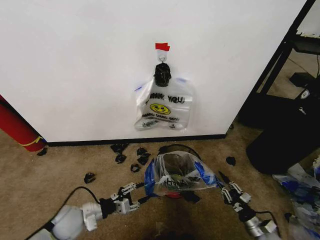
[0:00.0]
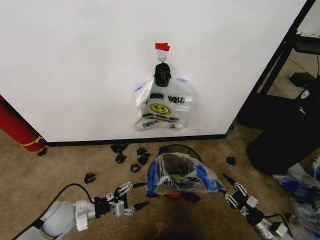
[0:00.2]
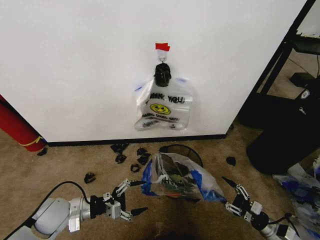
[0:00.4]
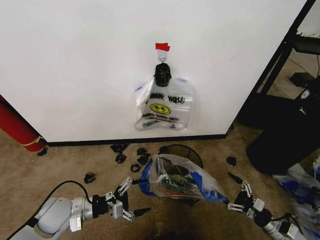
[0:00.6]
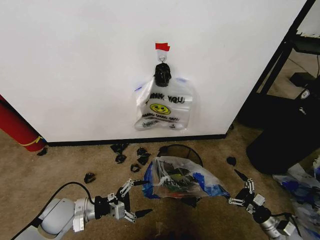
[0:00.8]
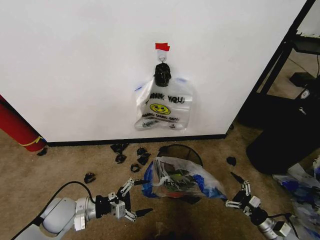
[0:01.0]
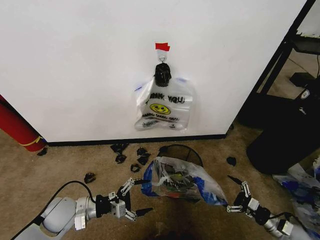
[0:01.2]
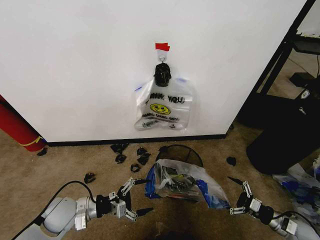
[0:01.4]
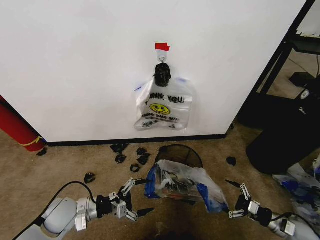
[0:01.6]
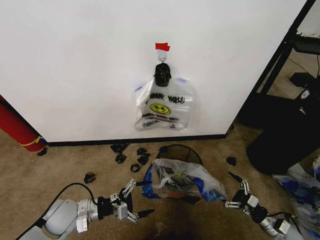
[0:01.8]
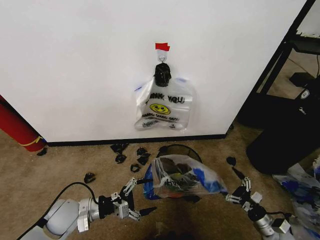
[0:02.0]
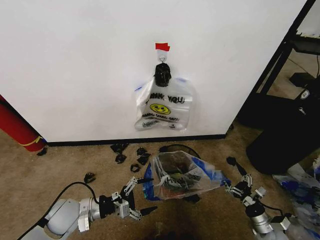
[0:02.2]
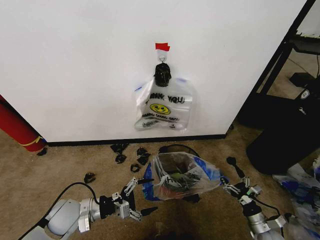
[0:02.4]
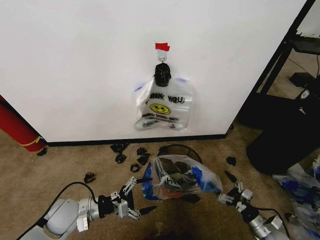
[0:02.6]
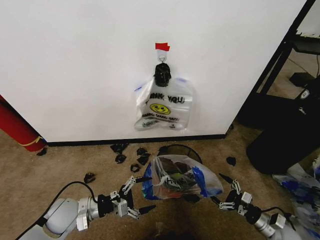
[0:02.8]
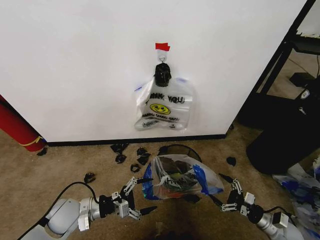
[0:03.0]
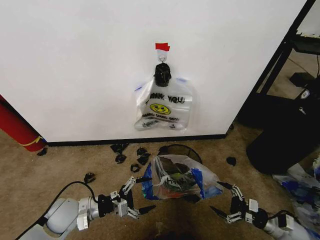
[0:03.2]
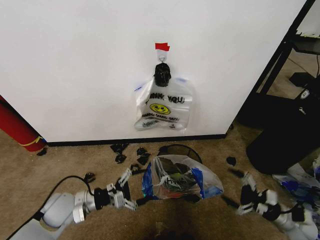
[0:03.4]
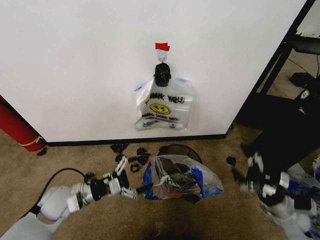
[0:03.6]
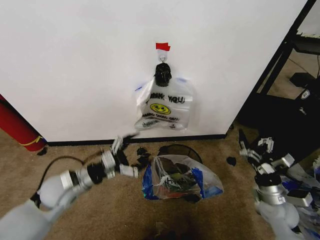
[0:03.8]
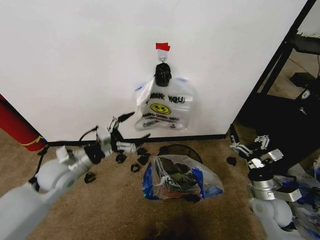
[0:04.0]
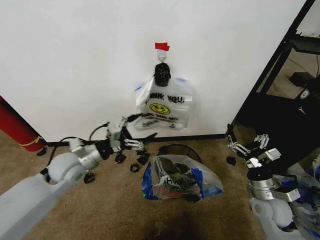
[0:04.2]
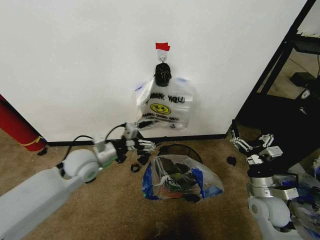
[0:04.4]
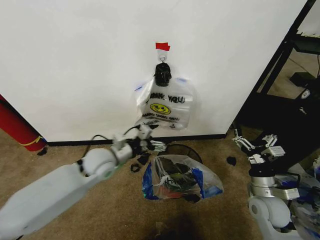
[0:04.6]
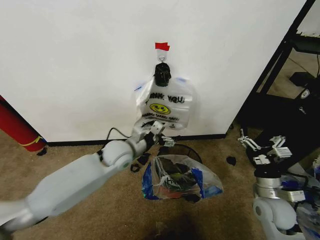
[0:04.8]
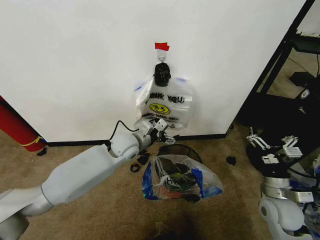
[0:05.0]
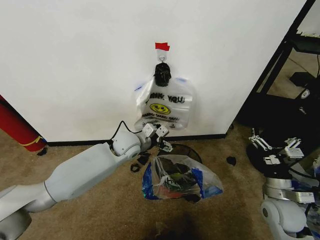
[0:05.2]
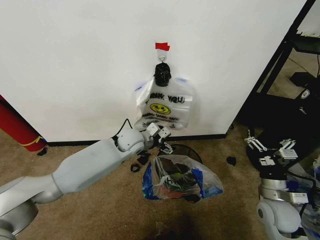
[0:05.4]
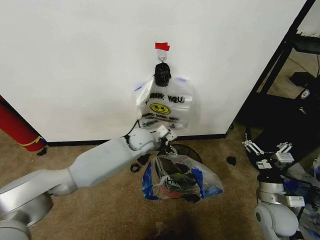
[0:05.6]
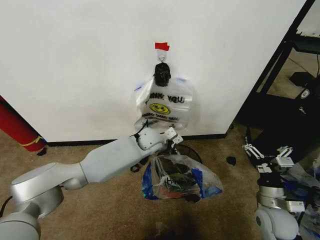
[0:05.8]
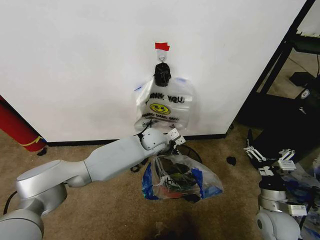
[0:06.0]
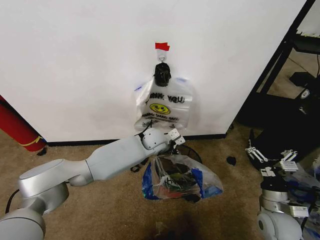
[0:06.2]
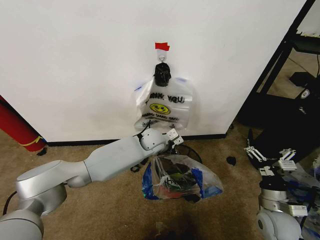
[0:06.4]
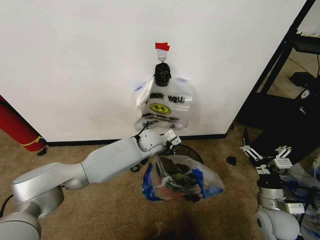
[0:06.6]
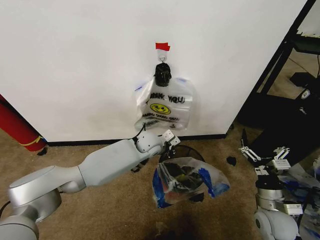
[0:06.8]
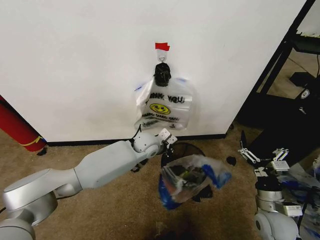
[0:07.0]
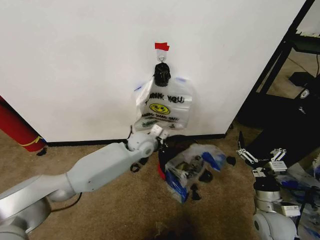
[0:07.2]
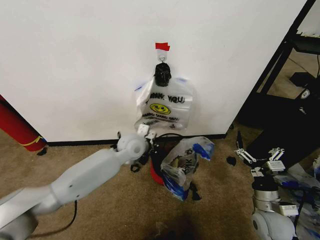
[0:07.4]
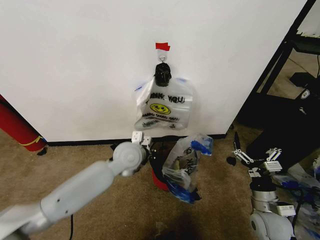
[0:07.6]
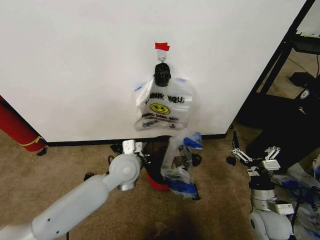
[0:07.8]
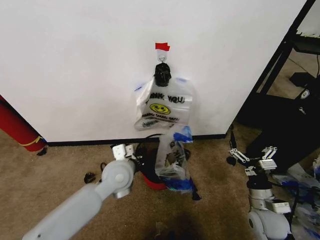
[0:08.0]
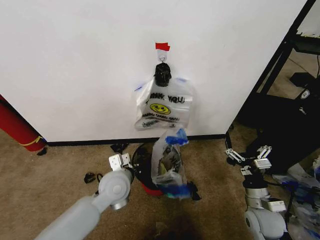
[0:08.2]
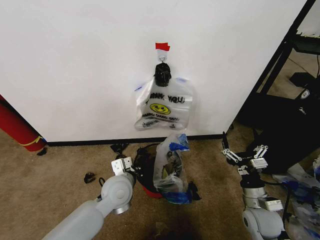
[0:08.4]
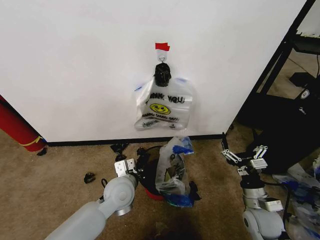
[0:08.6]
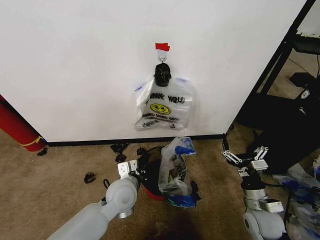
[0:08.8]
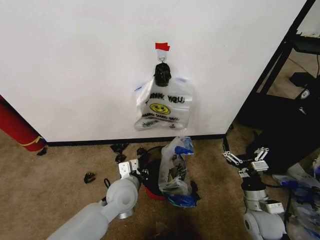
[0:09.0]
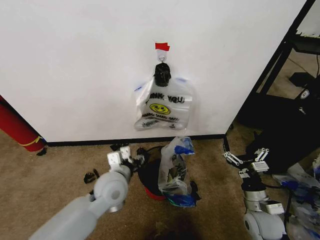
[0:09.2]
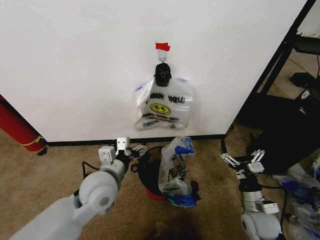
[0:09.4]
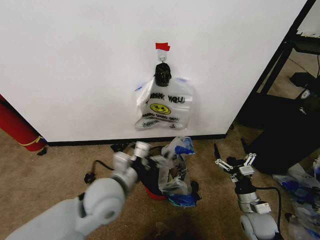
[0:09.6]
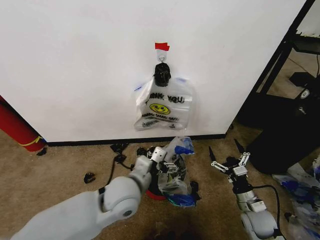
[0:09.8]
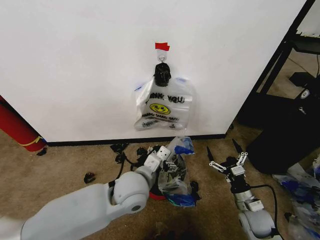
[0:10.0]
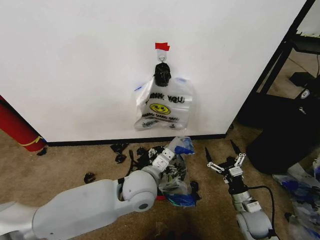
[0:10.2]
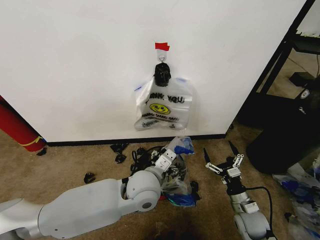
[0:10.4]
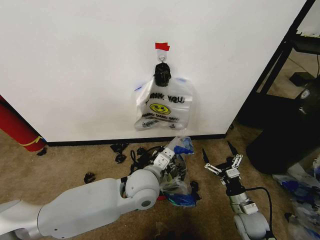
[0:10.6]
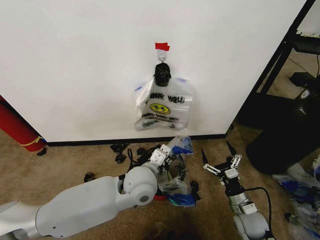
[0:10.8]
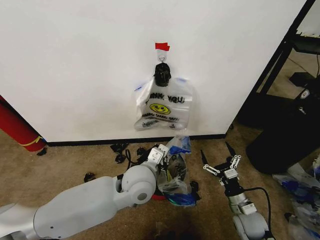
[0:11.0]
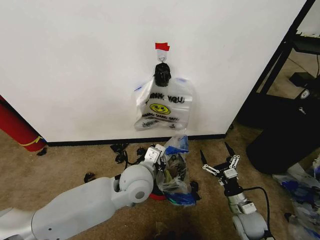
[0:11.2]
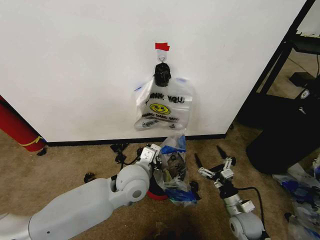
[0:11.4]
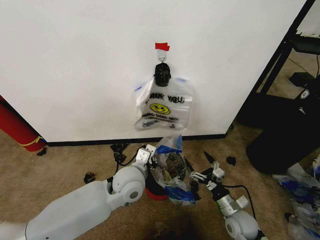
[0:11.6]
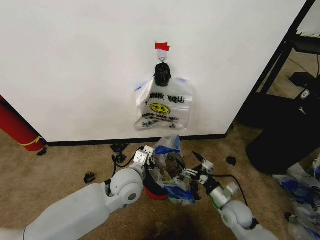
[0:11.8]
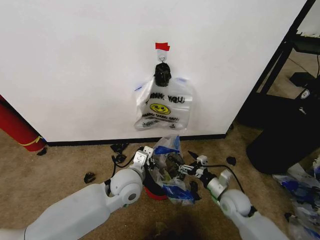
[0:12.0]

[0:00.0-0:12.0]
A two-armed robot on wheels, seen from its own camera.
Task of the whole recording: Pick up the garbage bag from the wall and place it over the trash bin.
0:00.0 to 0:01.6: The left gripper shifts by roughly 5 cm, and opens up, while the right gripper travels to the right and upward by approximately 10 cm, and opens its fingers.
0:01.6 to 0:03.0: The right gripper is displaced to the left by approximately 5 cm.
0:03.0 to 0:04.4: The right gripper is displaced upward and to the left by some 20 cm. The left gripper shifts approximately 15 cm upward, forward and to the right.
0:04.4 to 0:06.0: The left gripper travels to the right and forward by about 25 cm.
0:06.0 to 0:07.6: The left gripper travels backward and to the left by roughly 15 cm, and closes its fingers.
0:07.6 to 0:09.0: The left gripper moves backward and downward, some 10 cm, and opens.
0:09.0 to 0:10.4: The left gripper moves to the right and upward, some 10 cm, and opens. The right gripper travels downward by some 5 cm.
0:10.4 to 0:12.0: The left gripper heads to the left, covering roughly 5 cm, and closes up; the right gripper goes approximately 5 cm forward.

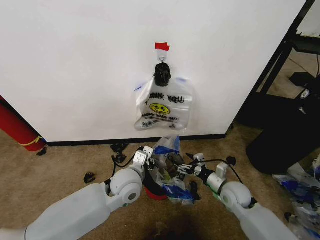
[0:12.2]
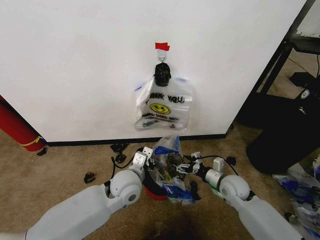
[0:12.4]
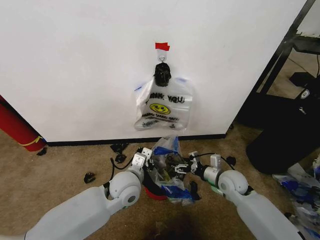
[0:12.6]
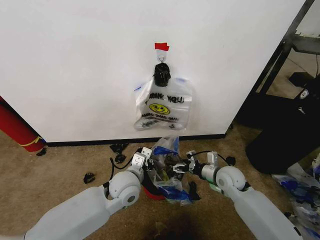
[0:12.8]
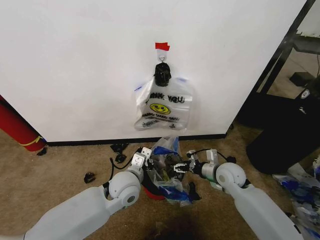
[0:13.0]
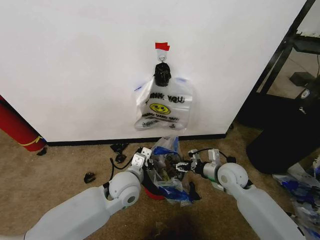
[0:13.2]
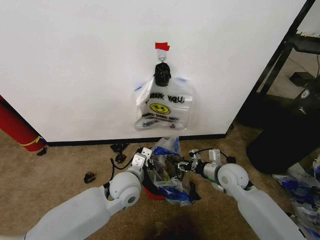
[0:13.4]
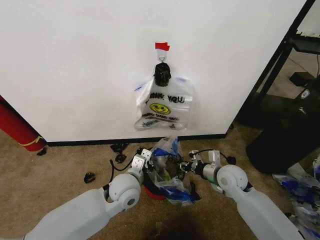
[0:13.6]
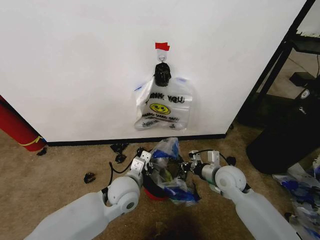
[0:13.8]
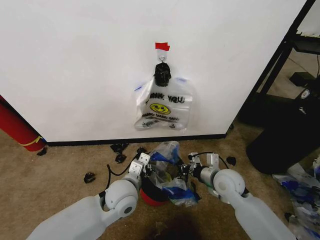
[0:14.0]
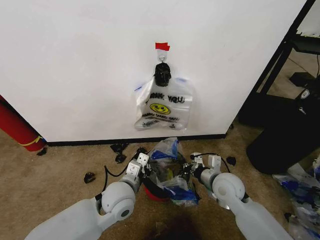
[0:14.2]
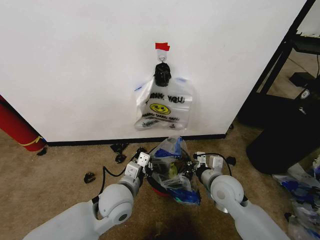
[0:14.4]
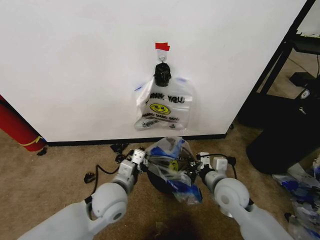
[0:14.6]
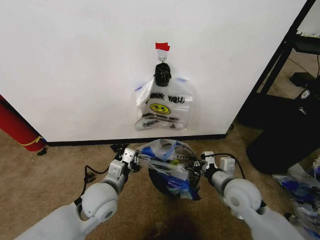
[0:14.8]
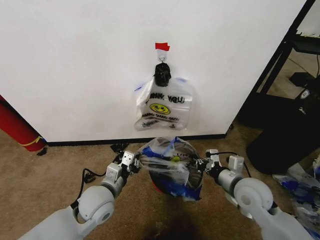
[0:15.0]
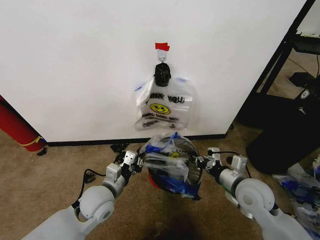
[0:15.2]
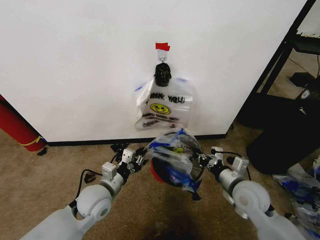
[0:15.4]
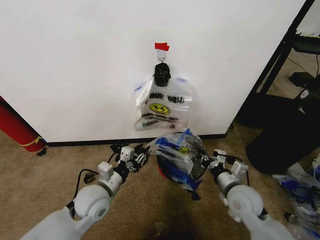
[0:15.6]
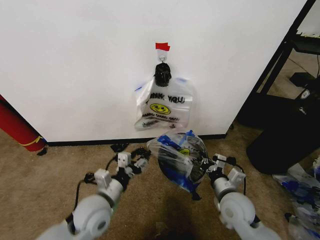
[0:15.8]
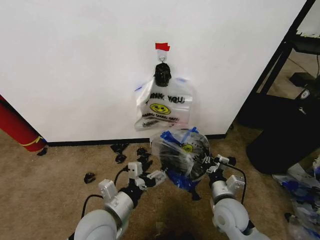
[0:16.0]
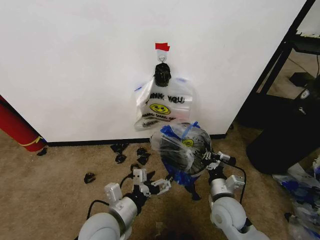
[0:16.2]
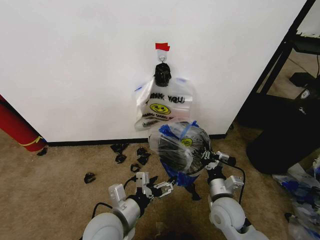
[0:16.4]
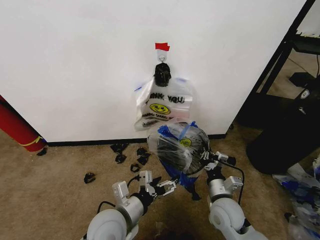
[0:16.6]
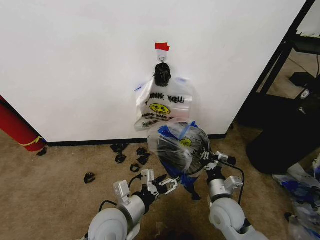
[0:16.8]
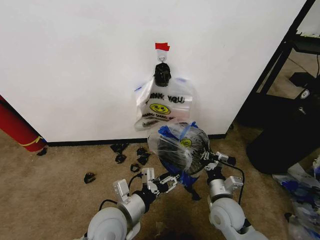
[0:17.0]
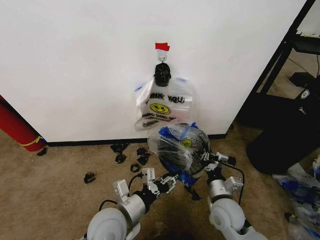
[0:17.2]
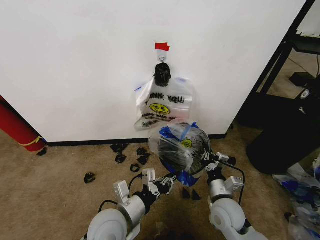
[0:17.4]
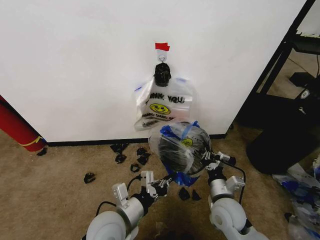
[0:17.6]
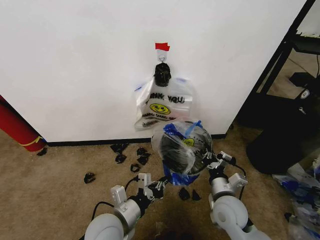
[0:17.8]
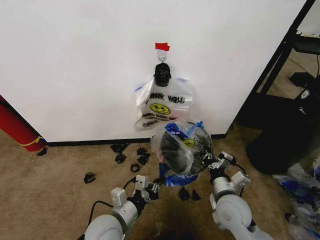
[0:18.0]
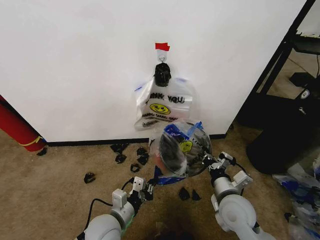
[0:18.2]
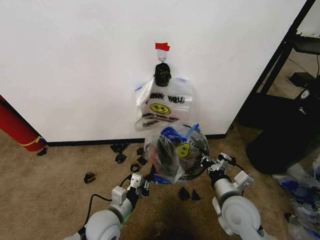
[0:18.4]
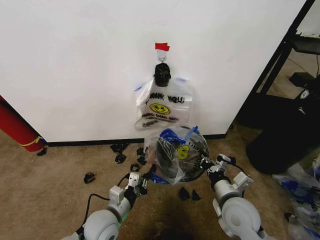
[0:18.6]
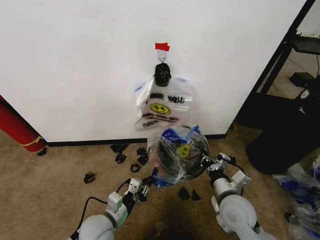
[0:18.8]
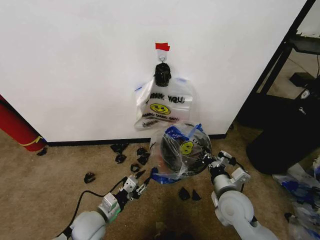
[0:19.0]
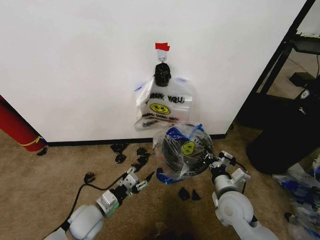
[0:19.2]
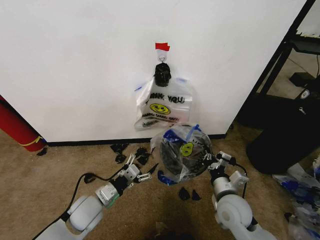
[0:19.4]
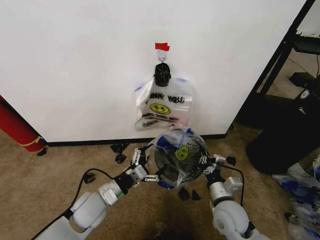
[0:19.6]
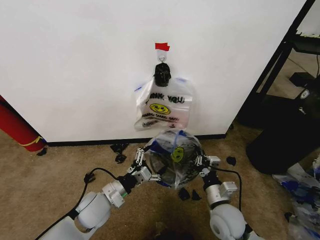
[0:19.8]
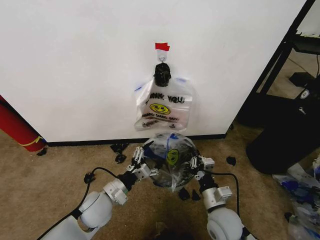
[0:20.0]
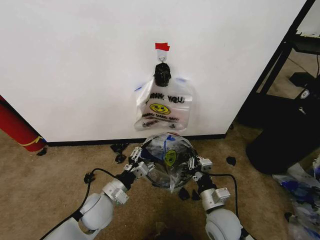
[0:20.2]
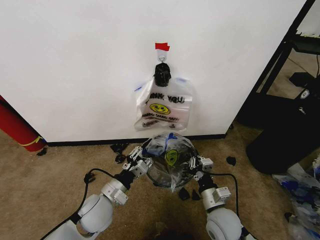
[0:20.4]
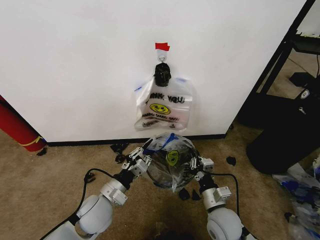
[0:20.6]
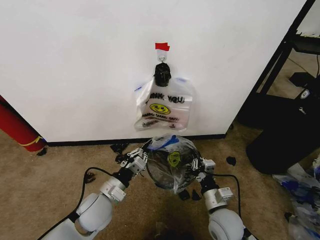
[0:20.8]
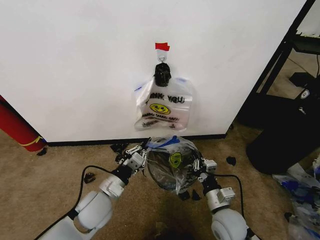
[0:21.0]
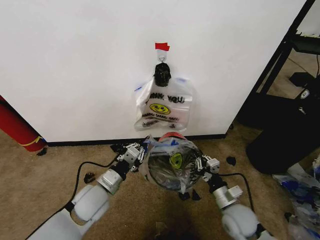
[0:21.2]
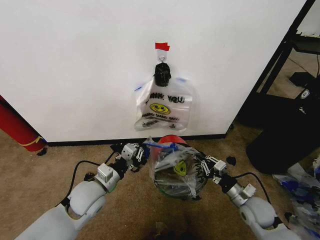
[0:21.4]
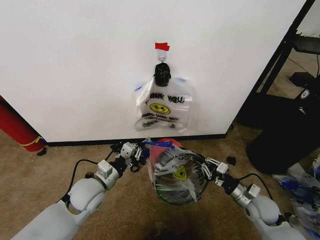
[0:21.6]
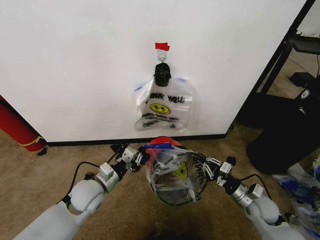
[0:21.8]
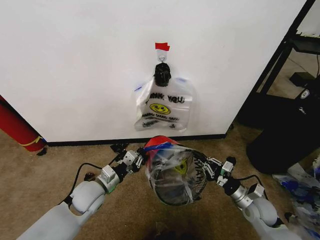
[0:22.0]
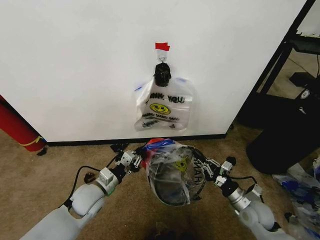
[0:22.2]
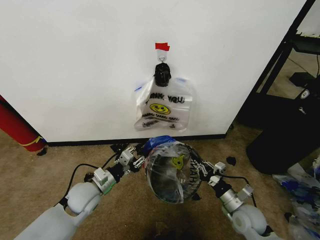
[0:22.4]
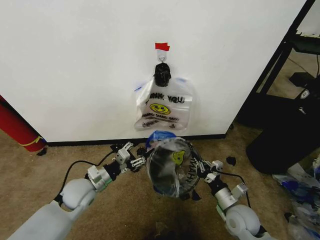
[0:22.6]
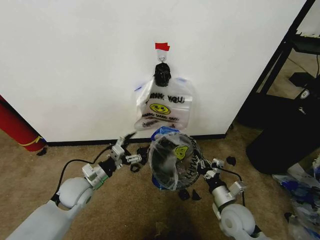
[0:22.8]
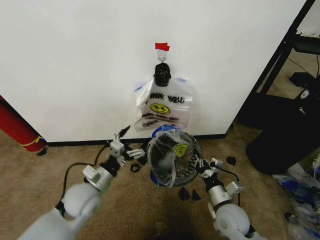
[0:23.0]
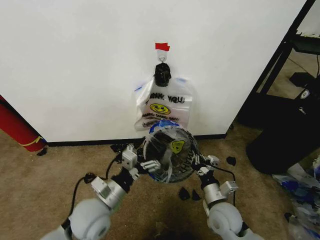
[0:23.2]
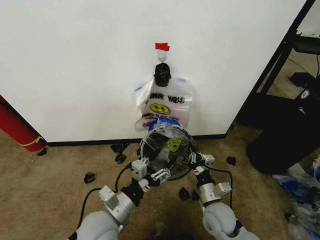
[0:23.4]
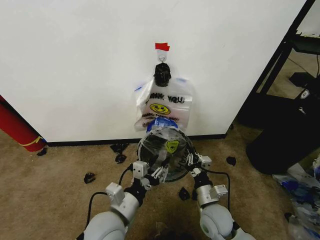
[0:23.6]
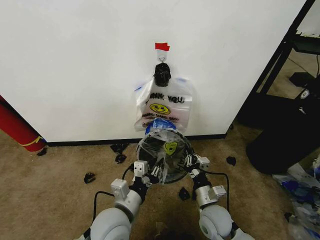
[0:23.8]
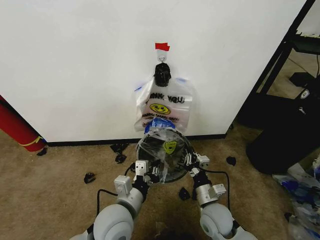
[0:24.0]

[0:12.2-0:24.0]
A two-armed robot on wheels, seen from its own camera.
Task of the whole recording: Pick up the garbage bag from the wall and place it over the trash bin.
0:12.2 to 0:13.6: The right gripper heads upward, covering some 5 cm, and closes its fingers.
0:13.6 to 0:15.2: The left gripper travels to the left by roughly 10 cm. The right gripper moves backward, some 10 cm.
0:15.2 to 0:16.6: The right gripper shifts about 10 cm downward and to the left. The left gripper heads backward and to the right, covering approximately 10 cm, and opens up.
0:16.6 to 0:18.2: The left gripper goes approximately 5 cm downward, and closes.
0:18.2 to 0:19.6: The left gripper moves forward and to the left, some 10 cm, and opens its fingers.
0:19.6 to 0:21.0: The left gripper closes its fingers.
0:21.0 to 0:22.6: The left gripper heads to the left, covering some 5 cm, and opens, while the right gripper moves to the right, approximately 5 cm.
0:22.6 to 0:24.0: The right gripper is displaced to the left by approximately 10 cm. The left gripper goes about 20 cm to the right, backward and upward, and closes up.
